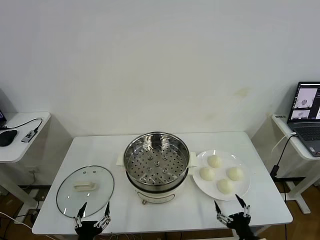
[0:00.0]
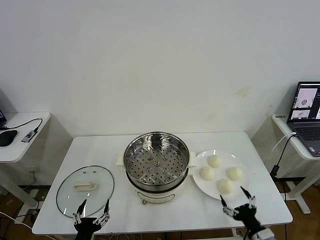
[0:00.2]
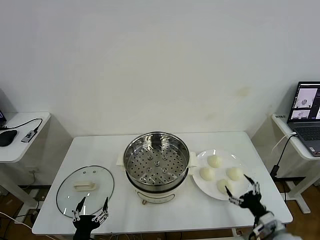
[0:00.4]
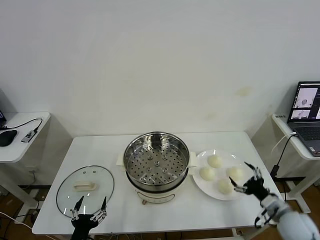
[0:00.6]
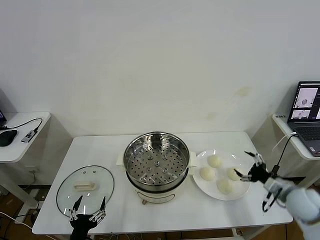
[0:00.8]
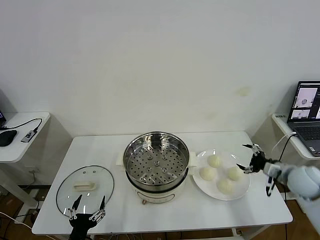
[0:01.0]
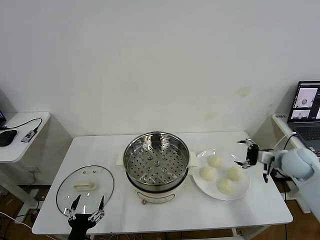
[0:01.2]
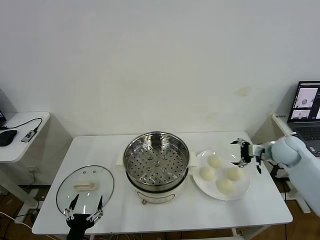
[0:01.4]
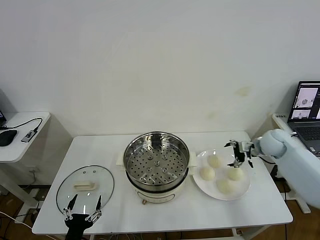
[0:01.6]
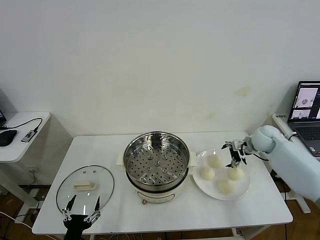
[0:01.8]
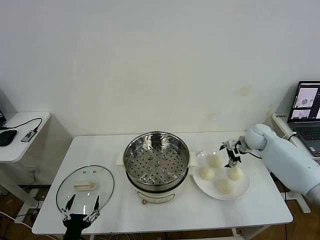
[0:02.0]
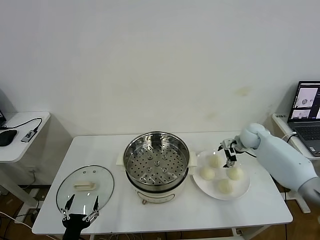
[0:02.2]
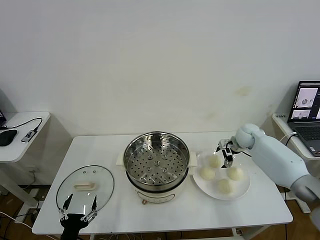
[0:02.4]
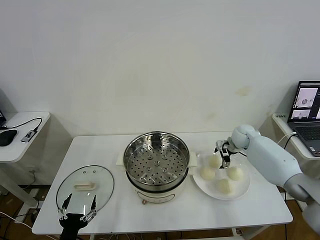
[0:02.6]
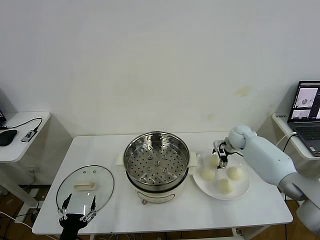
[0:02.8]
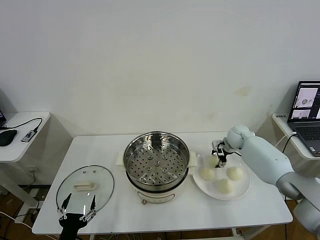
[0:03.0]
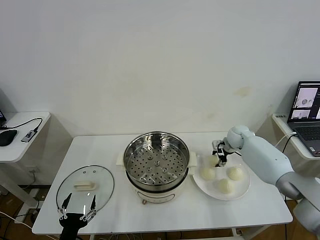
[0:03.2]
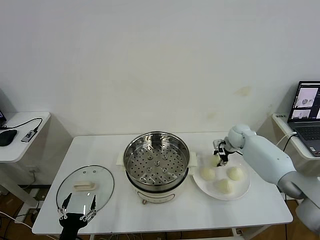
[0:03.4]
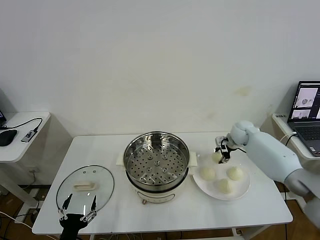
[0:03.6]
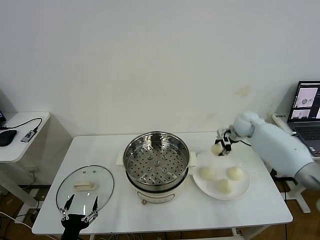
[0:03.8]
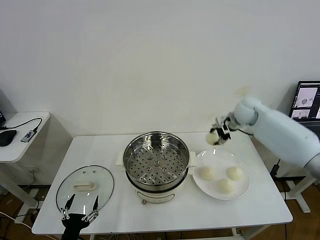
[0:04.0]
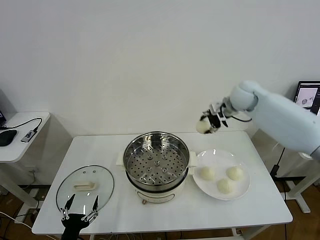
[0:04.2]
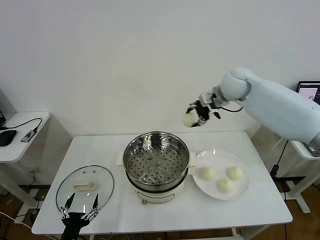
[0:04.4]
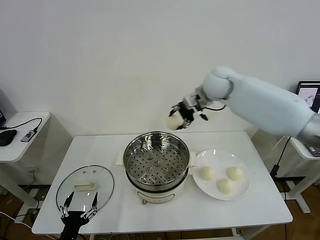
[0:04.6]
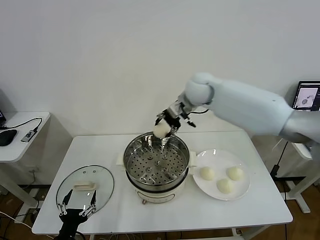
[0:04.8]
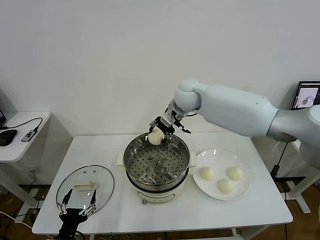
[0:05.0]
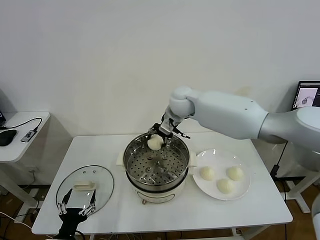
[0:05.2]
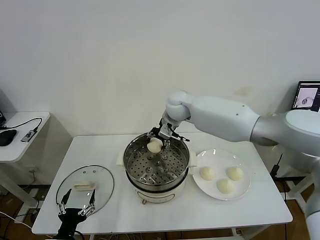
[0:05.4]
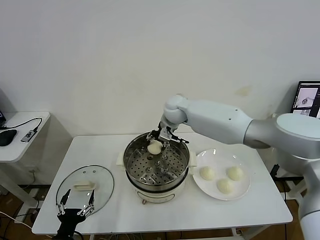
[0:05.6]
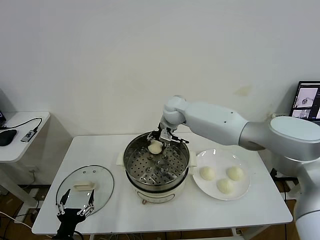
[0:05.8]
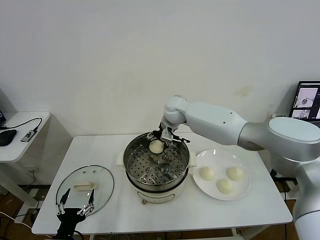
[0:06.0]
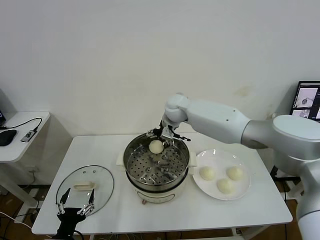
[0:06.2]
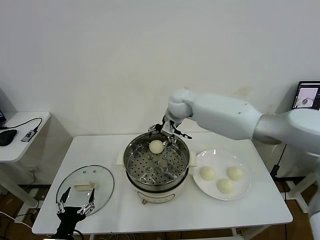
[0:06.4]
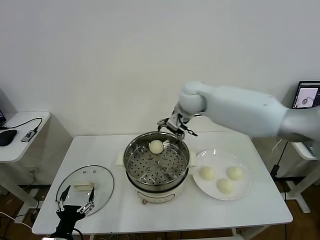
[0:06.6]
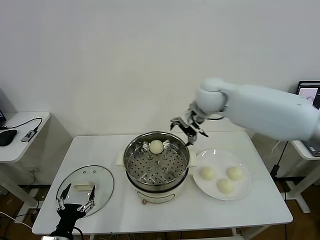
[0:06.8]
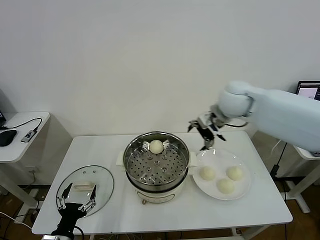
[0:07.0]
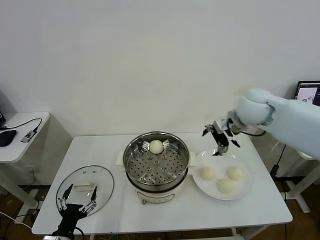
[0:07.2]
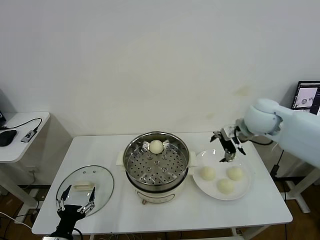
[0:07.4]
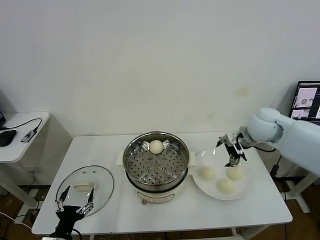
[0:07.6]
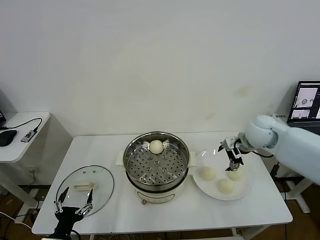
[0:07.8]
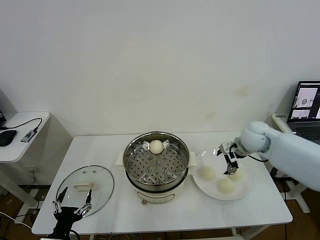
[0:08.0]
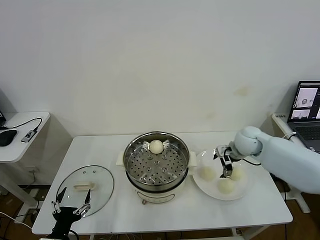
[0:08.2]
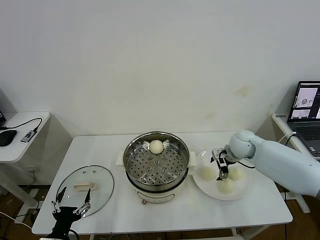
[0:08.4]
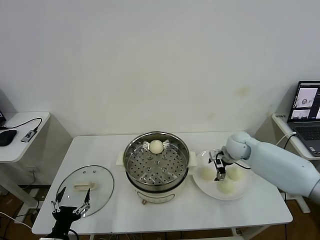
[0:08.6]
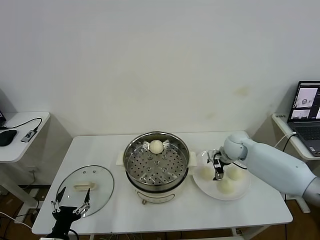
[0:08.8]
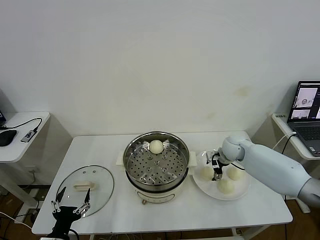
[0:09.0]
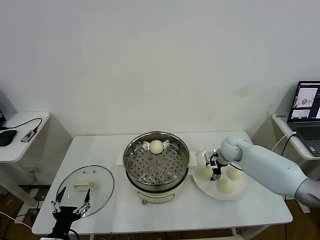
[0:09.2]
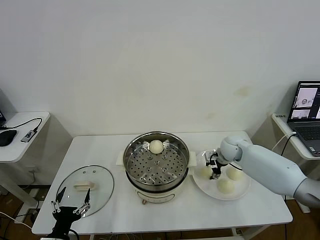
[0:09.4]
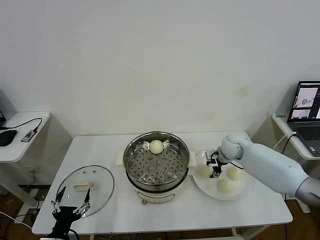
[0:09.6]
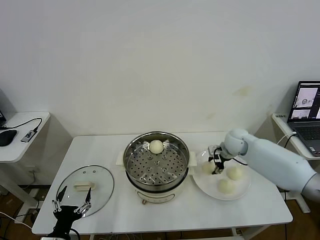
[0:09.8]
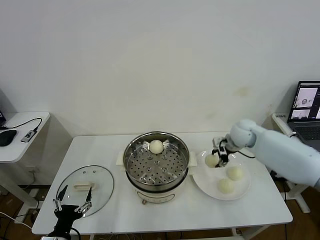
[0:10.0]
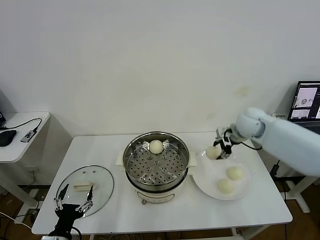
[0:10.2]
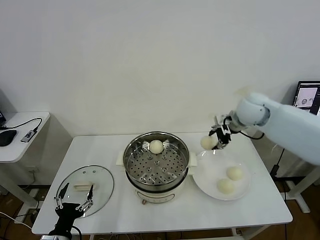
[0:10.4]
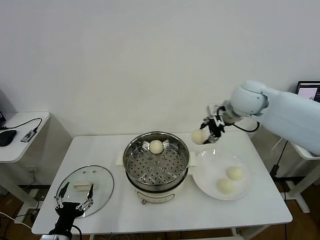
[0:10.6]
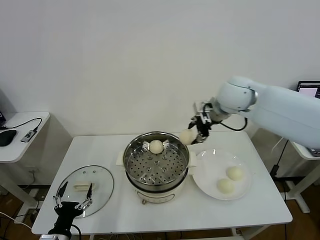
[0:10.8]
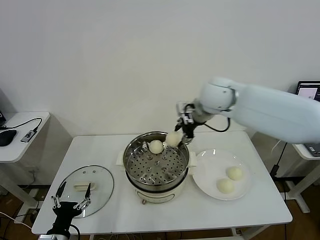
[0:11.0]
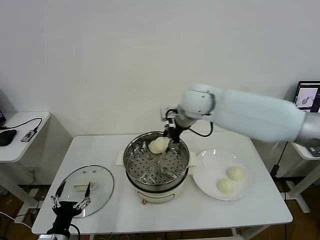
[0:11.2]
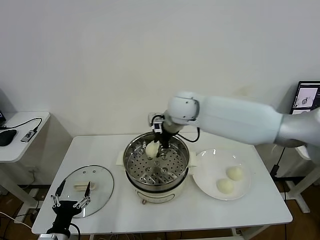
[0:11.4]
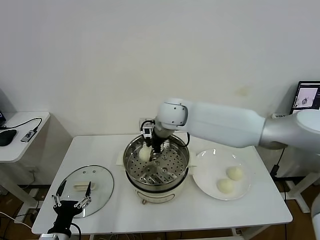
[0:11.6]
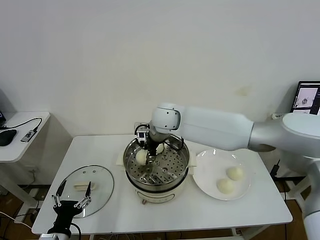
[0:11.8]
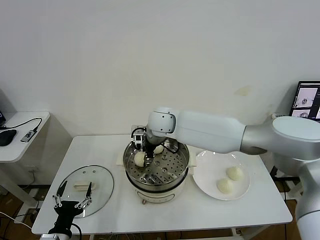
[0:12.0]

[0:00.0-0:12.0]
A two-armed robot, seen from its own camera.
Task of the whole recording: take steamed baozi put them in steamer then cover it.
Step, 0:00.0 to 0:03.2: Grasp the baozi in the plate with right gripper.
Step, 0:03.4 to 0:06.2: Place the baozi on the steamer with right gripper.
Step, 0:06.4 to 0:09.4: Grasp the baozi in the plate with right gripper.
0:01.6 to 0:03.0: The right gripper moves forward, to the left and downward, approximately 10 cm, and closes its fingers.
0:03.0 to 0:04.4: The right gripper shifts roughly 30 cm upward and to the left.
0:04.4 to 0:06.0: The right gripper heads to the left and downward, covering some 15 cm, and opens its fingers.
0:06.0 to 0:07.6: The right gripper moves to the right and backward, roughly 30 cm.
0:07.6 to 0:09.0: The right gripper is displaced downward by about 15 cm.
0:09.0 to 0:10.4: The right gripper travels upward by approximately 20 cm, and closes up.
0:10.4 to 0:12.0: The right gripper travels to the left by approximately 25 cm.

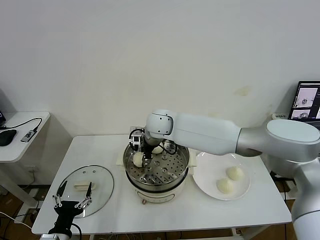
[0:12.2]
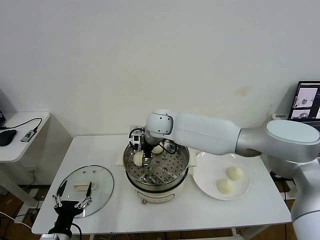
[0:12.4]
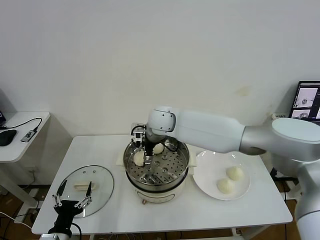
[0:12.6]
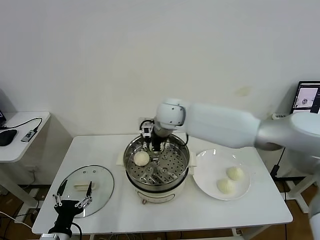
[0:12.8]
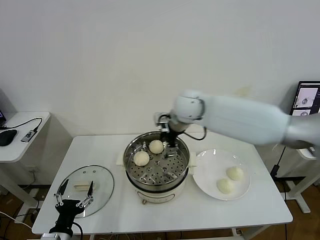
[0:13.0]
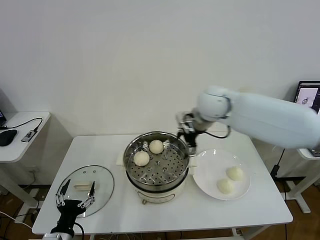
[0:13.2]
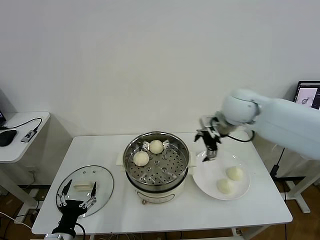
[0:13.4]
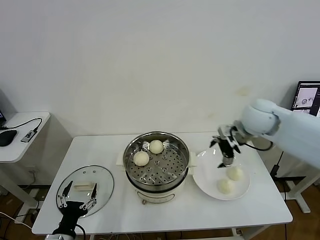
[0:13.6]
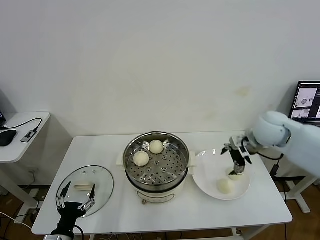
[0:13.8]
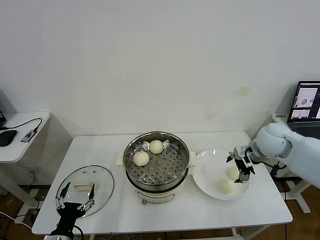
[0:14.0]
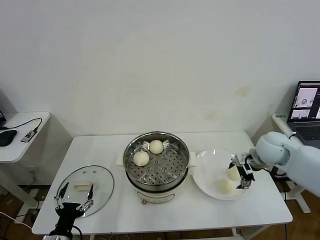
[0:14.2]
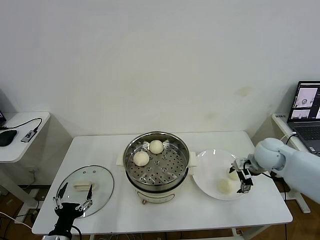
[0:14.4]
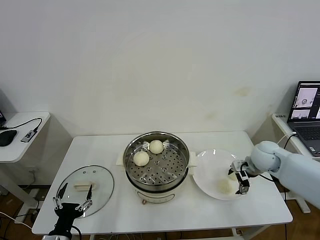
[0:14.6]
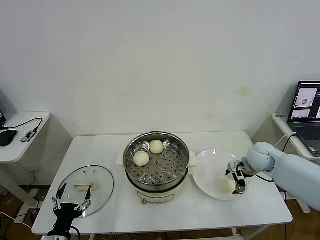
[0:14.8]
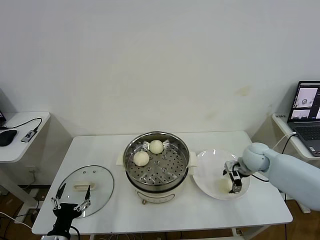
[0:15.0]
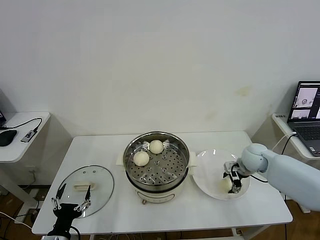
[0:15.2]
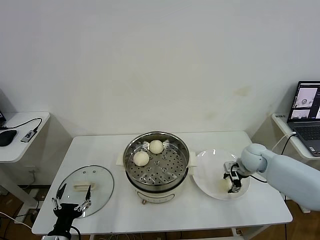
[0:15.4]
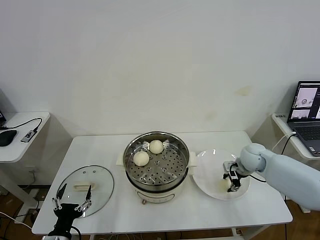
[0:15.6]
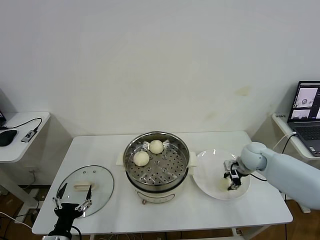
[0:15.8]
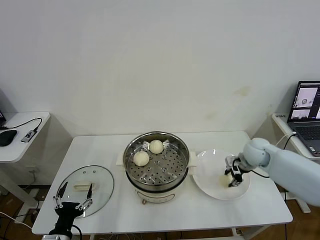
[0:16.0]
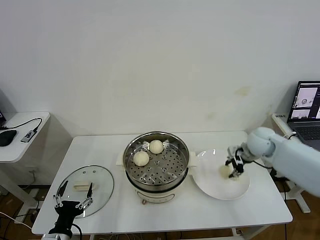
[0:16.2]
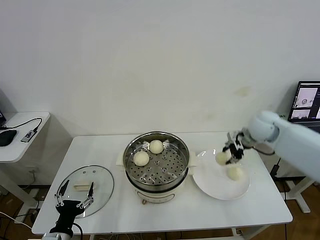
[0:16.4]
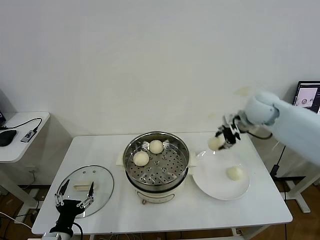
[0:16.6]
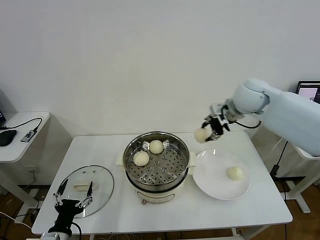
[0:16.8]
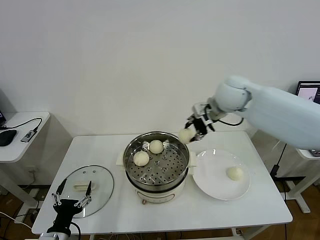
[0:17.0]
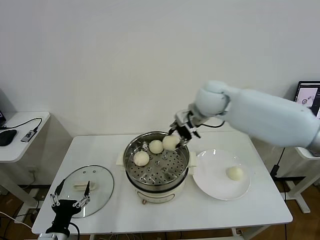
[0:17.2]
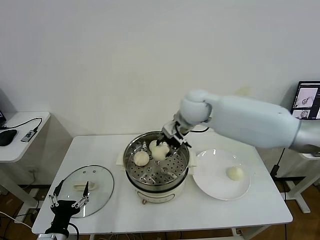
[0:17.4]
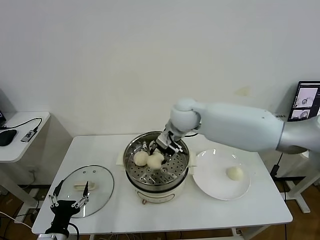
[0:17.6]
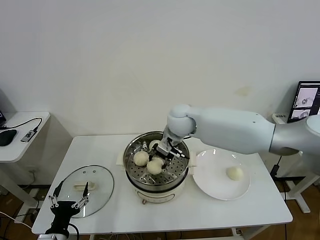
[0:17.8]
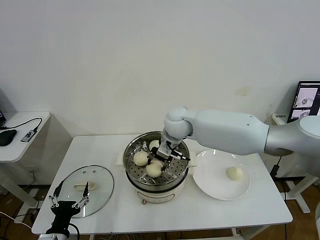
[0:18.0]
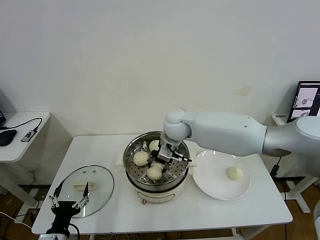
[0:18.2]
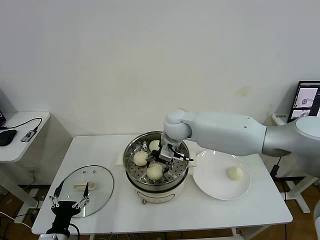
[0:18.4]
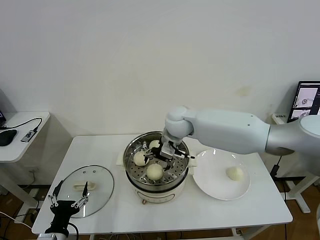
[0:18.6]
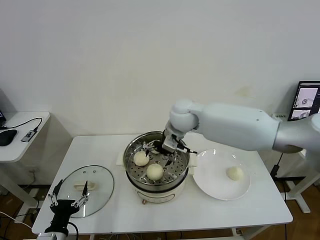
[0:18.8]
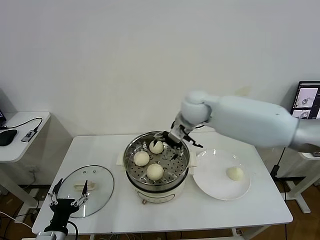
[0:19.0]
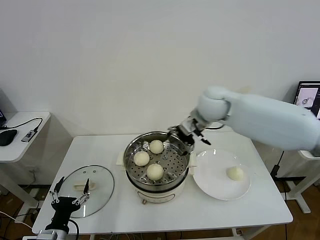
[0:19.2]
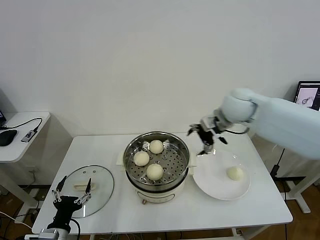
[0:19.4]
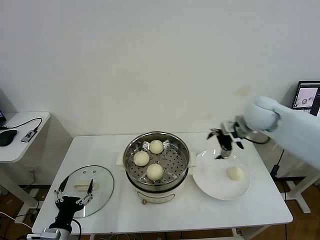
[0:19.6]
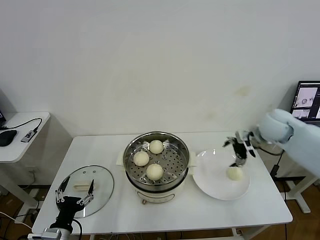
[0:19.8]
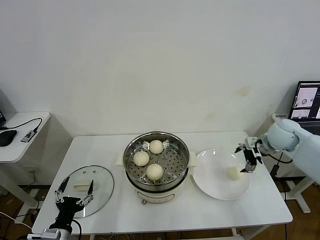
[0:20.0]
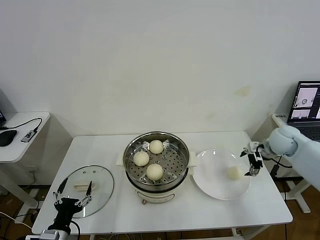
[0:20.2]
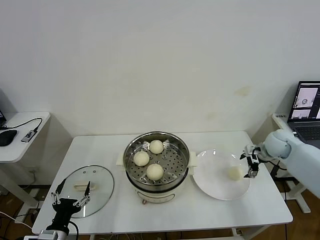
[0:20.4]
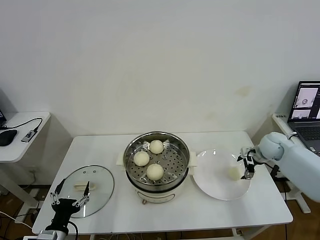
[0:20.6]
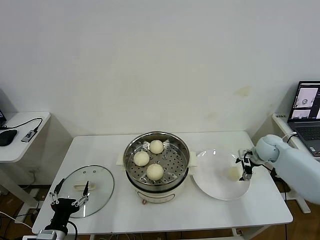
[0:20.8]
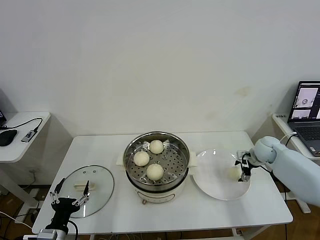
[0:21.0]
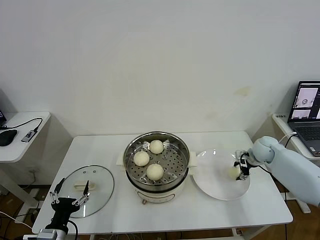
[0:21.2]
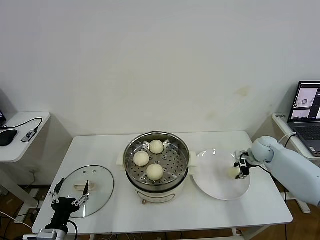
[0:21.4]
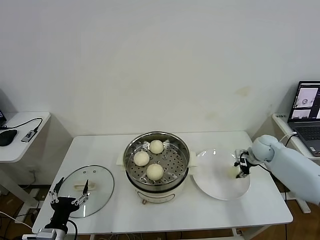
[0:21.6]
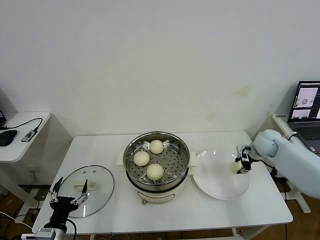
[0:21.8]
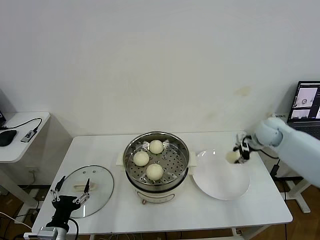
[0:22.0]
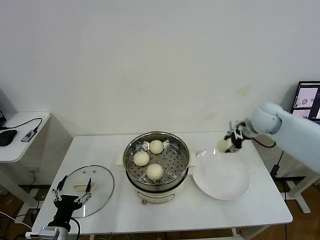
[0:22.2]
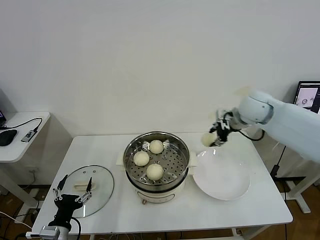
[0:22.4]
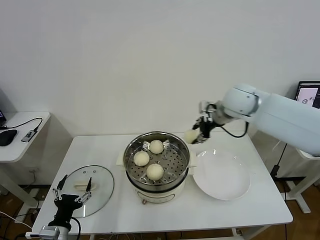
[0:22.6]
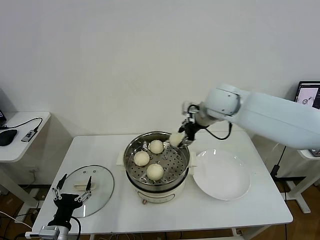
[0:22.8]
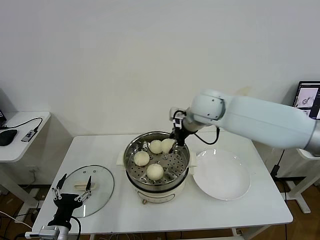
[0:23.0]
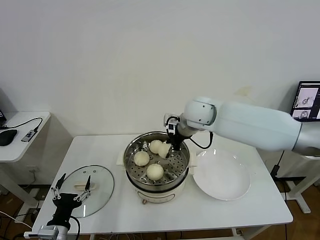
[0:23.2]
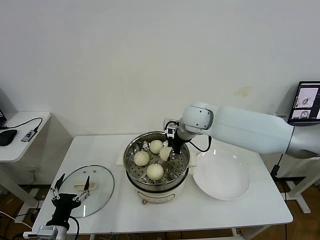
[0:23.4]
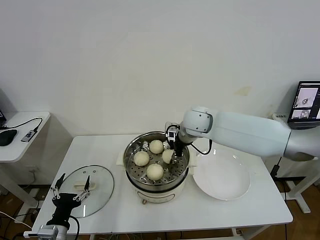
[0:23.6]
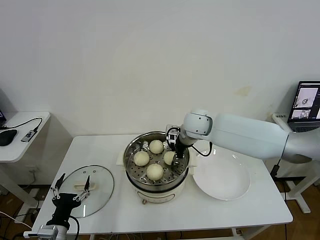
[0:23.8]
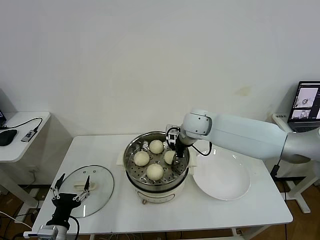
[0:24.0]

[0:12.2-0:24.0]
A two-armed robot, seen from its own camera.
Task of the whole recording: take steamed baozi put them in steamer then cover it.
Step, 0:12.8 to 0:15.8: Grasp the baozi in the plate with right gripper.
Step, 0:16.0 to 0:18.6: Place the baozi on the steamer with right gripper.
Step, 0:19.0 to 0:21.6: Grasp the baozi in the plate with right gripper.
0:12.2 to 0:13.6: The right gripper is displaced to the right by about 30 cm, and opens.
0:13.6 to 0:15.2: The right gripper moves downward, roughly 15 cm, and closes up.
0:15.2 to 0:16.6: The right gripper heads upward, covering about 20 cm, and closes.
0:16.6 to 0:18.2: The right gripper travels to the left by roughly 25 cm.
0:18.2 to 0:19.6: The right gripper goes some 25 cm to the right, and opens up.
0:19.6 to 0:21.0: The right gripper travels downward and to the right by about 20 cm.
0:21.0 to 0:22.6: The right gripper heads upward and to the left, covering roughly 30 cm, and closes.
0:22.6 to 0:24.0: The right gripper moves to the left and downward, about 15 cm.
